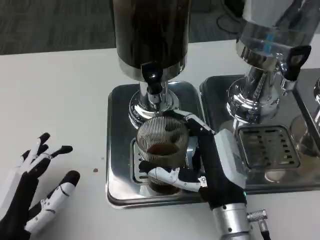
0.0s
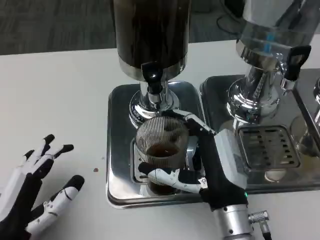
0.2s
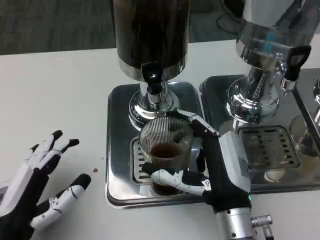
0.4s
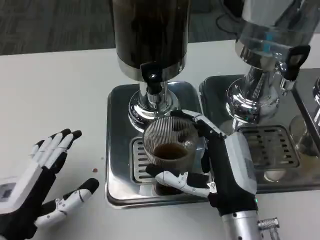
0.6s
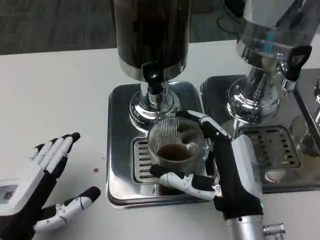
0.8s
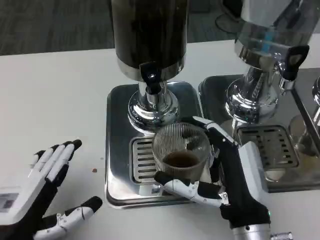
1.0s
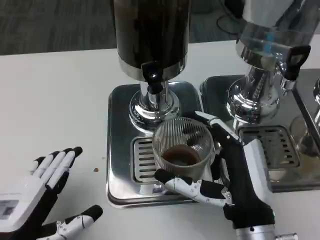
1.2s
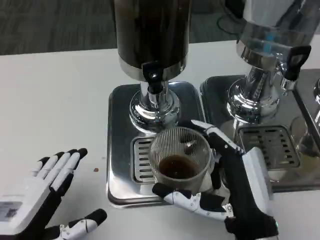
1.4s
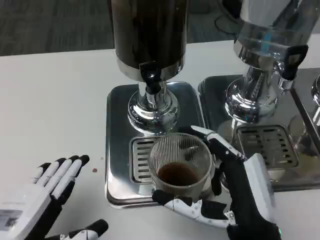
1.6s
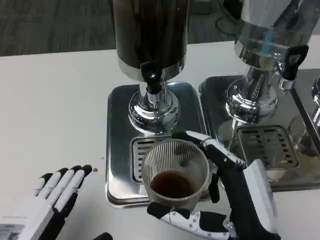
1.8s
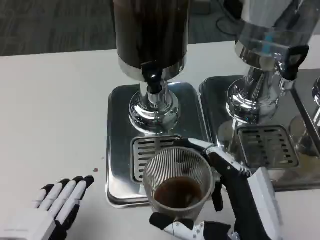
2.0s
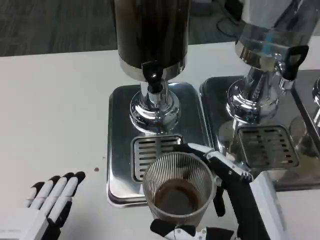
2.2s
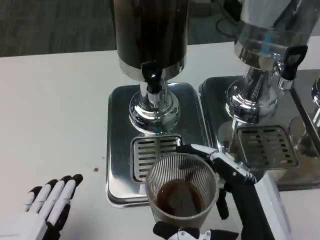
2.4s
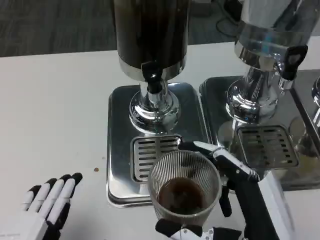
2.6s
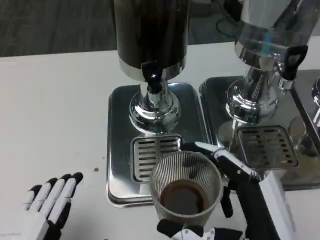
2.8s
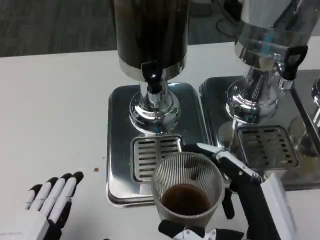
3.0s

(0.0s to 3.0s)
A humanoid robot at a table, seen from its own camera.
Task of the whole recording: Grasp the cup under the faucet to collect the drink, then remove the cup.
0.0s - 1.6s: The right hand is displaced backward by roughly 5 cm.
1.6s - 3.0s: The left hand shifts by about 5 cm.

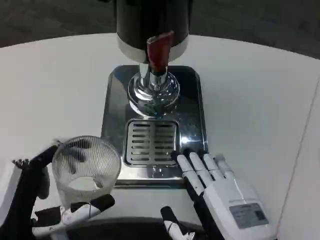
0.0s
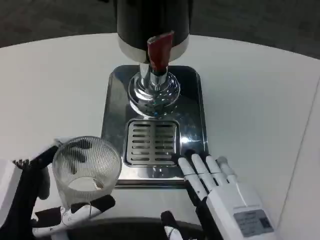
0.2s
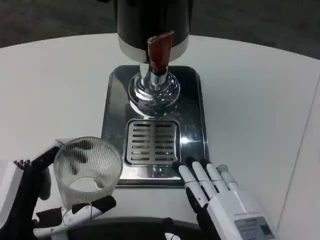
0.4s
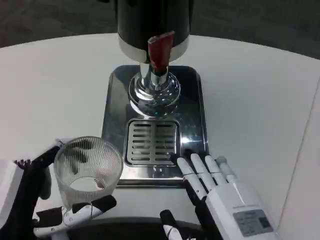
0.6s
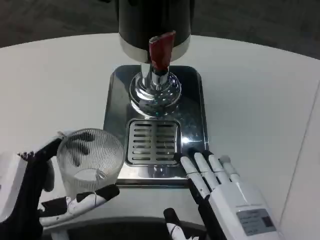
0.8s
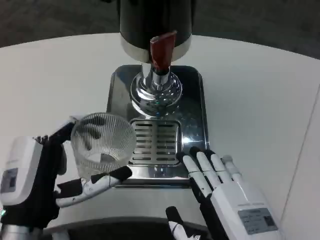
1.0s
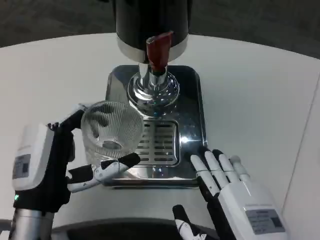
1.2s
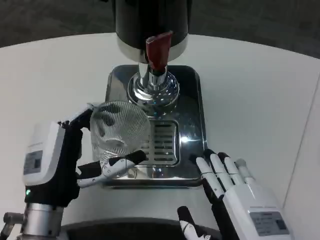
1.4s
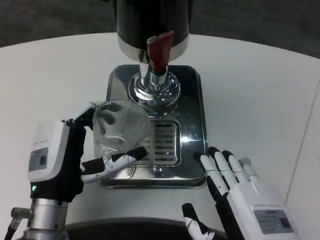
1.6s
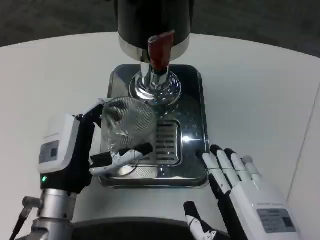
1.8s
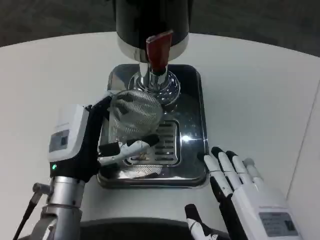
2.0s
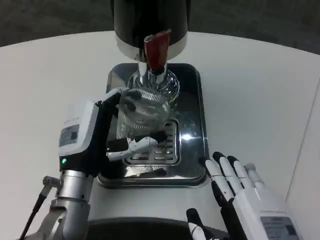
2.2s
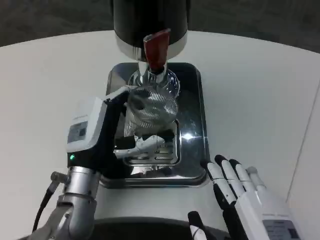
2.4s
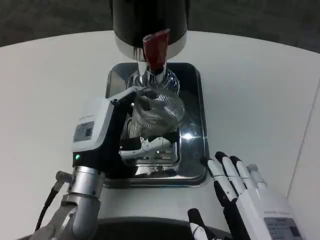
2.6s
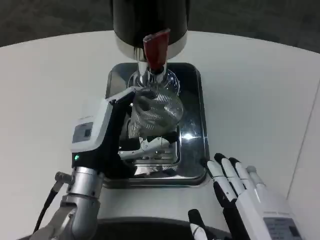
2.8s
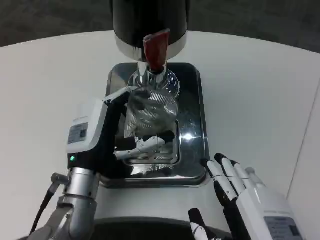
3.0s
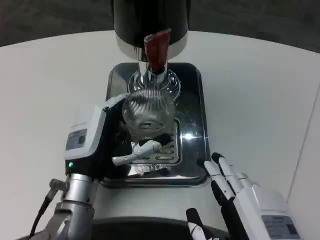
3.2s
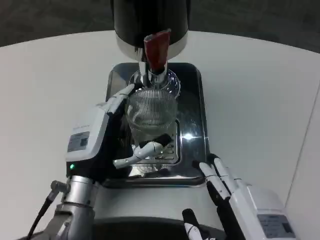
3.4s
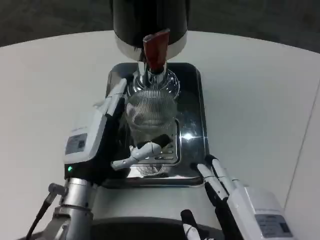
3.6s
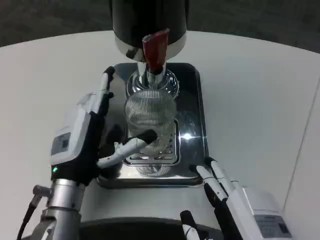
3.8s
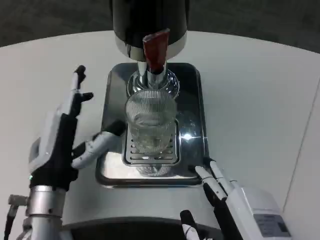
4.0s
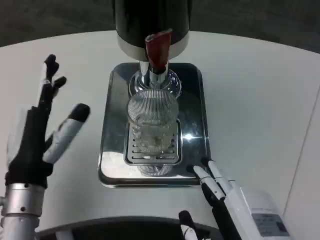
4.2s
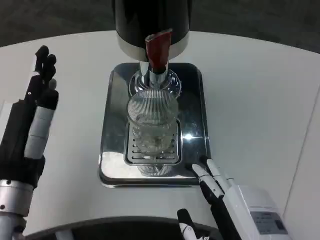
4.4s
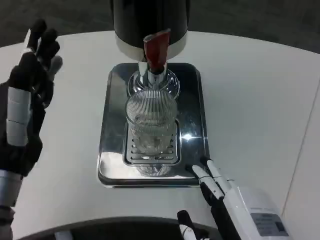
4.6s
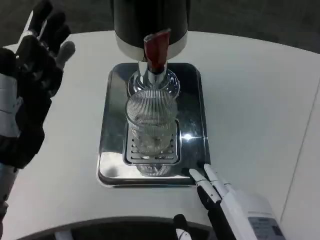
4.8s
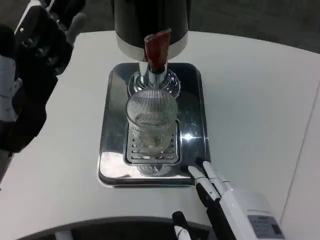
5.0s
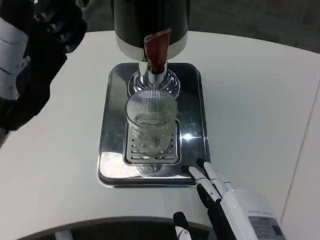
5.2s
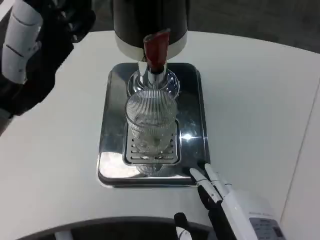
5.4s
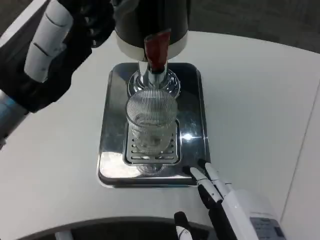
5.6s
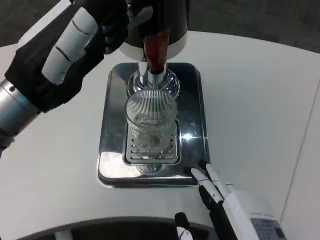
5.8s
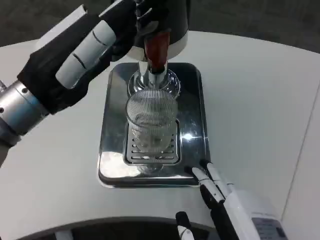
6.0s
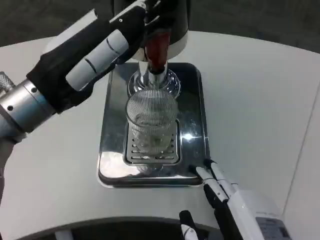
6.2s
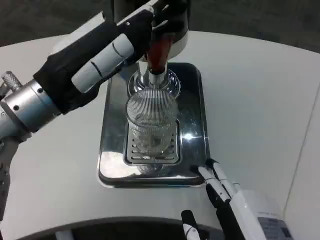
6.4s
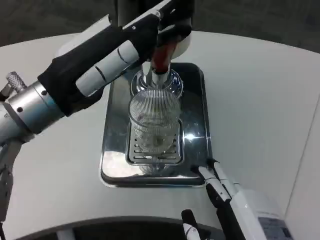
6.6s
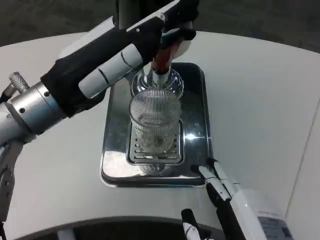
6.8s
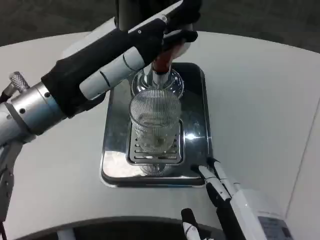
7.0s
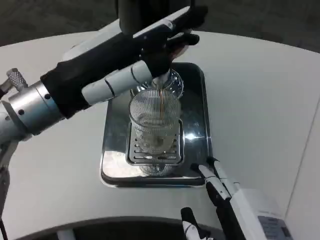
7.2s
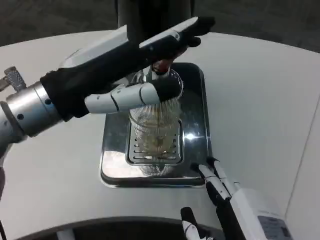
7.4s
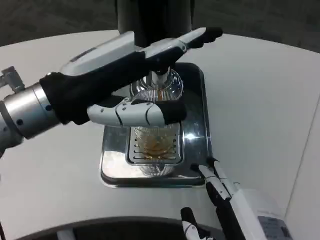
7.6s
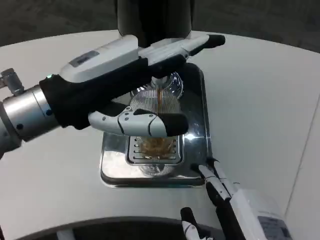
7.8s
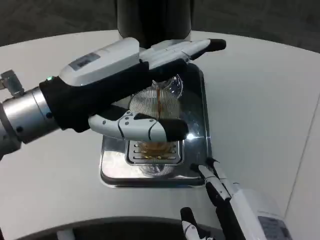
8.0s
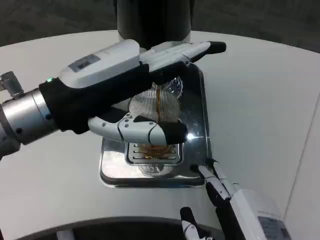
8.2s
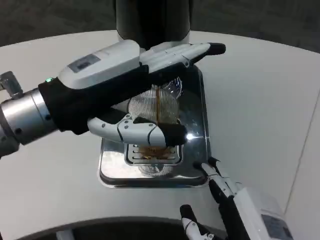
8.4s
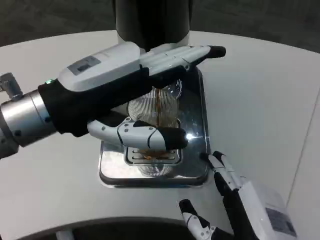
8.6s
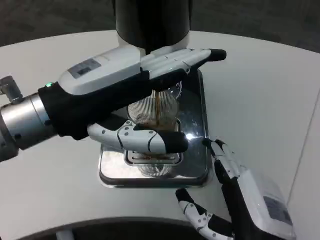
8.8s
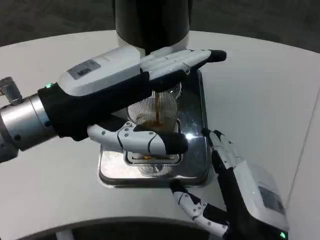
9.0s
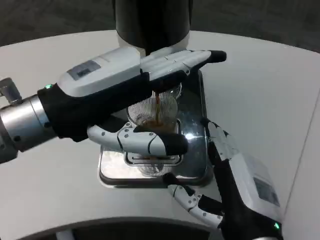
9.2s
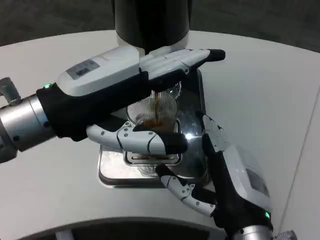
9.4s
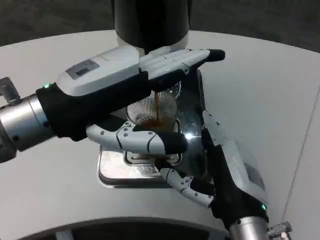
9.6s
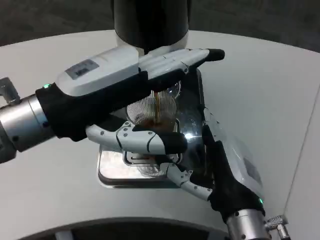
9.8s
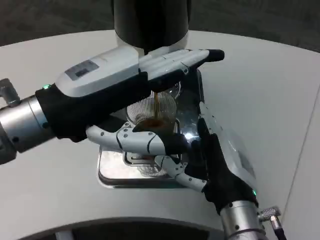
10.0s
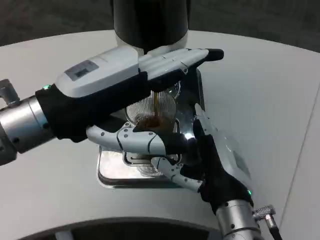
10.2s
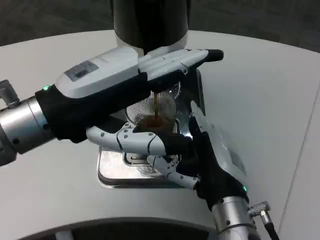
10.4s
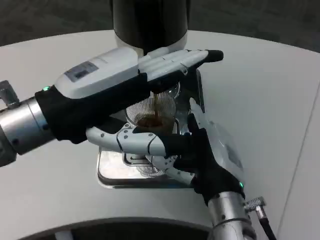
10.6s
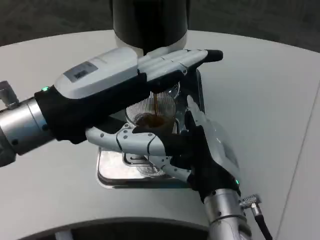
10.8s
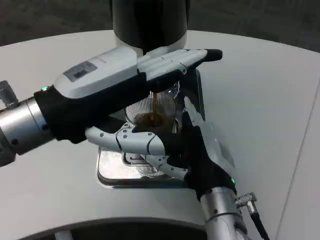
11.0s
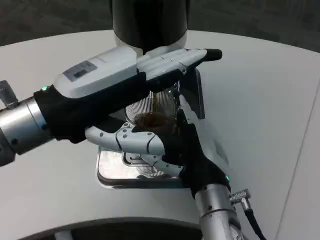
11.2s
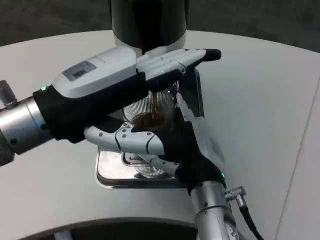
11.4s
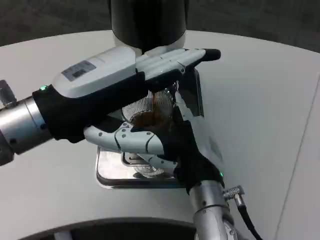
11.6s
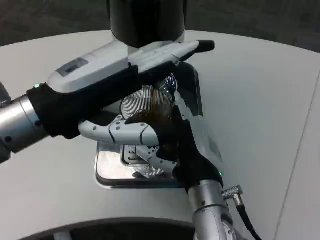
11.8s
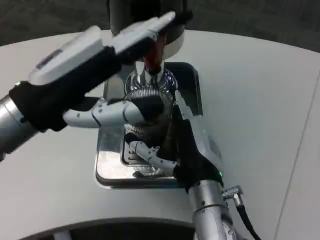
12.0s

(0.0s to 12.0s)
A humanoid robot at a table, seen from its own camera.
Task of the whole recording: Grasp the cup under the faucet to collect the drink, then remove the cup.
0.0s - 1.6s: The left hand goes some 10 cm forward.
1.6s - 3.0s: The left hand shifts by roughly 5 cm.
3.0s - 4.4s: The left hand is displaced to the left and backward by roughly 10 cm.
4.4s - 6.0s: The left hand travels upward by about 15 cm.
9.0s - 10.4s: The right hand is displaced forward by approximately 5 cm.

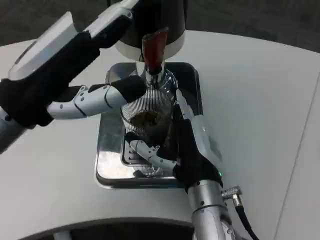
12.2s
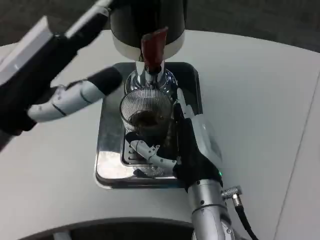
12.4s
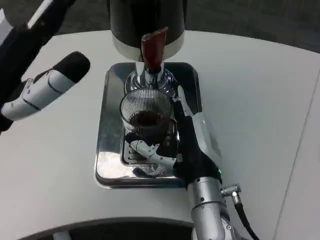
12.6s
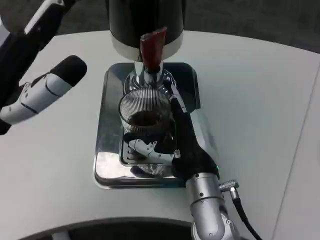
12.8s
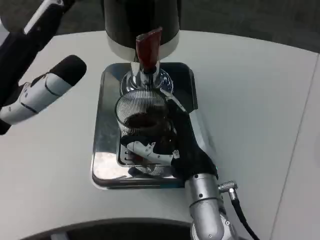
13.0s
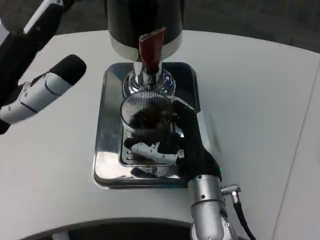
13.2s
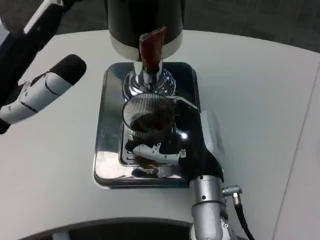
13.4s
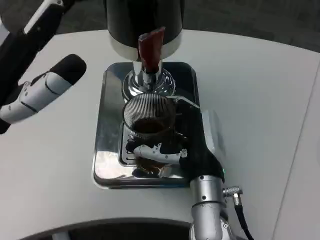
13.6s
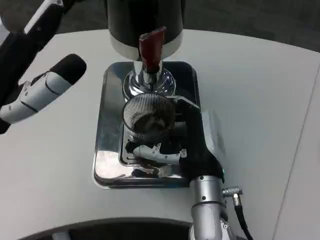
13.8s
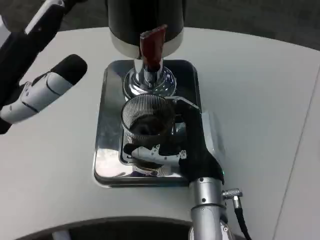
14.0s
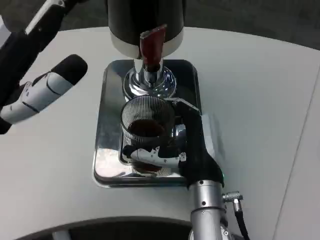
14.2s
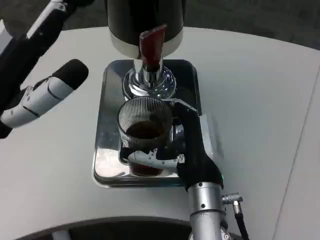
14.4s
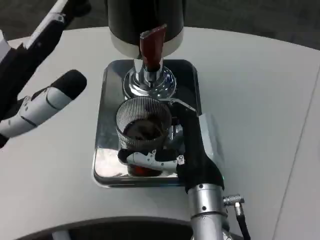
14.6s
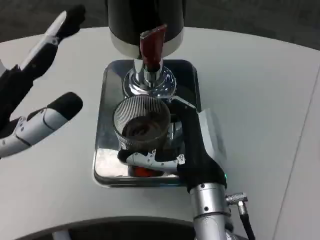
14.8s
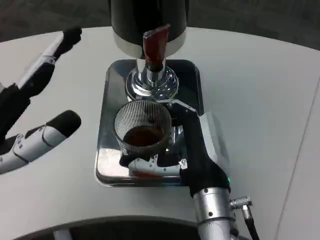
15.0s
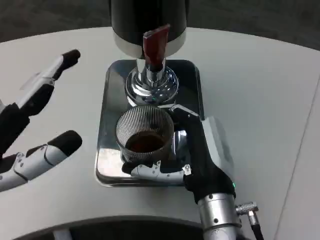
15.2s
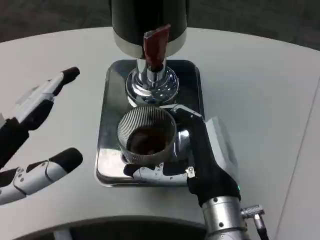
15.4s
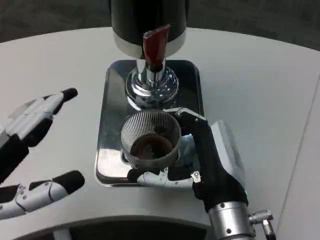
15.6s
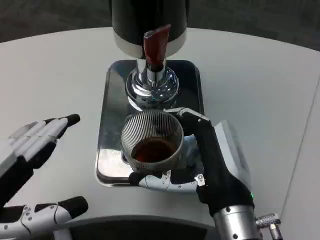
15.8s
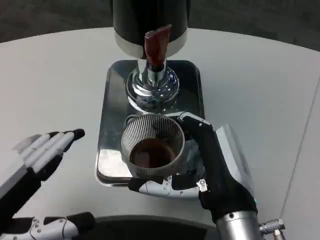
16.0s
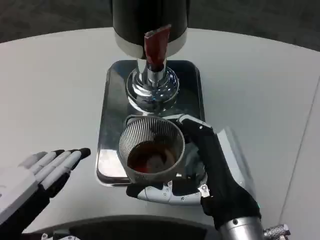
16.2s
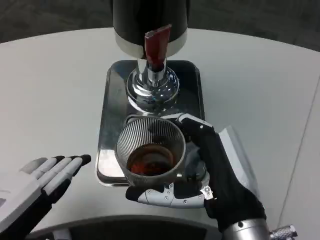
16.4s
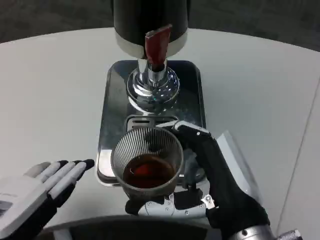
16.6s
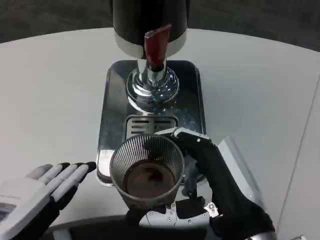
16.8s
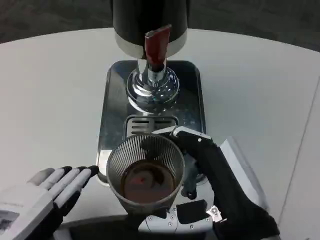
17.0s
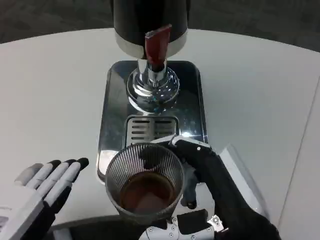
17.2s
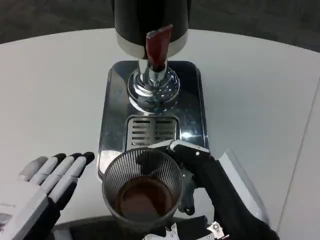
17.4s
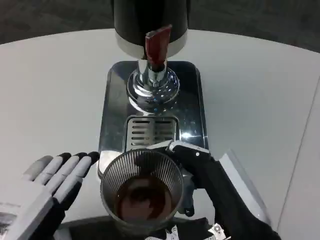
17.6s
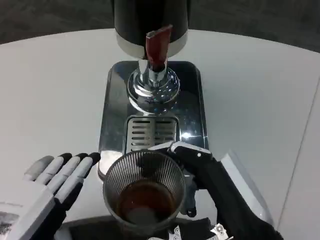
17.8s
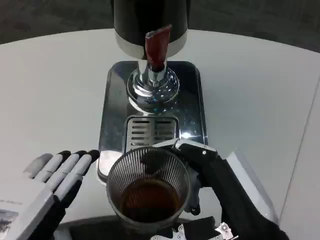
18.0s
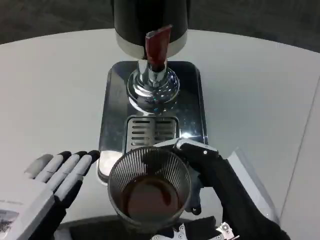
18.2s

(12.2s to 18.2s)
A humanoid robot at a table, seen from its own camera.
Task of the whole recording: Grasp the cup under the faucet to collect the drink, then remove the cup.
13.8s - 15.2s: The left hand moves backward, roughly 5 cm.
15.2s - 16.6s: The right hand heads backward, covering about 5 cm, while the left hand moves some 5 cm.
16.6s - 18.2s: The hands move only a little.

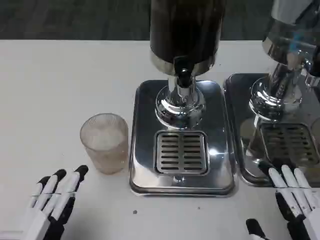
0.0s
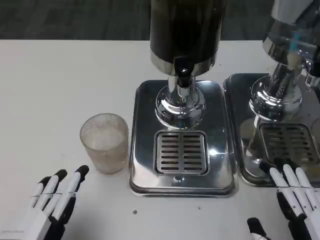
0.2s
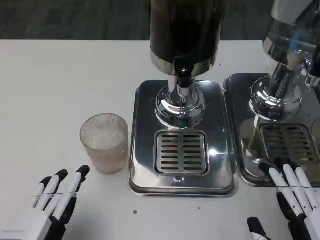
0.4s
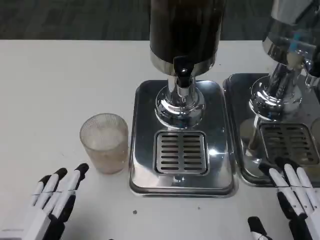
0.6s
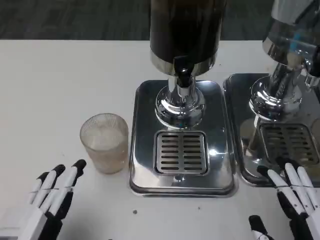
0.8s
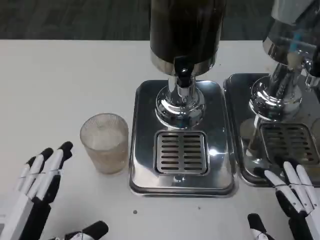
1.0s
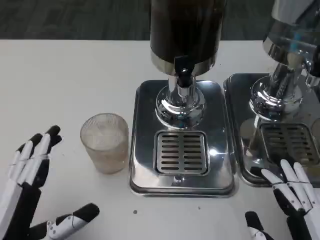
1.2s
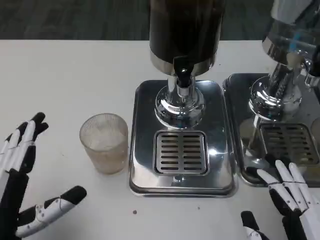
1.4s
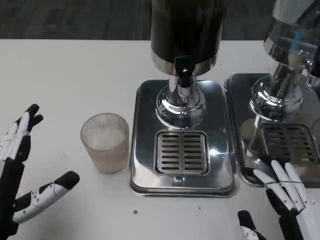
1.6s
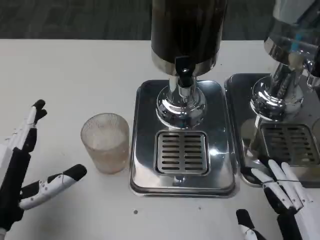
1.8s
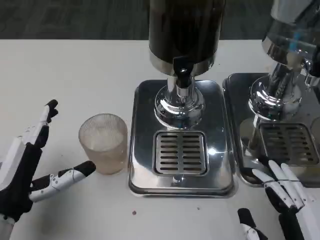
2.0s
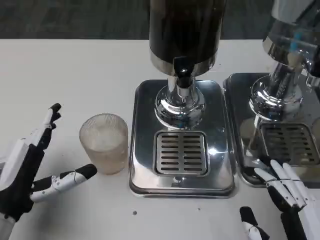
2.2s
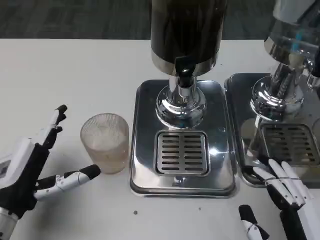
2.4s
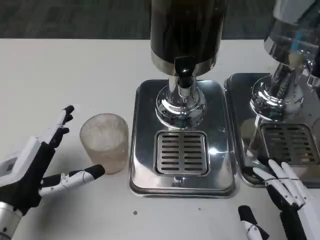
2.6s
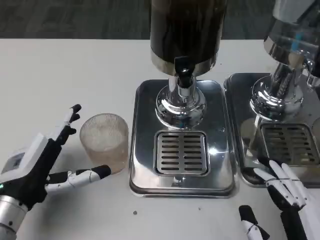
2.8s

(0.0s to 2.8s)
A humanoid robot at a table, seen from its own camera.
Task of the whole recording: Grasp the cup under the faucet to collect the drink, then remove the cup.
0.0s - 1.4s: The left hand moves approximately 5 cm.
1.4s - 2.8s: The left hand is displaced forward by about 10 cm.
